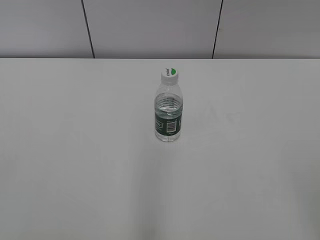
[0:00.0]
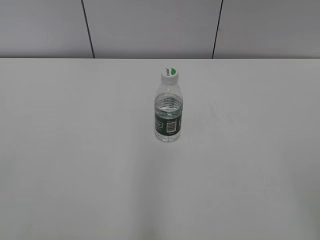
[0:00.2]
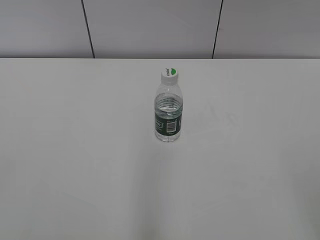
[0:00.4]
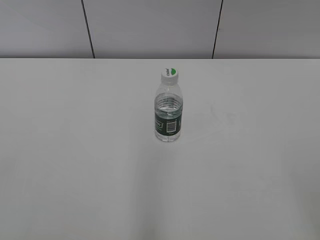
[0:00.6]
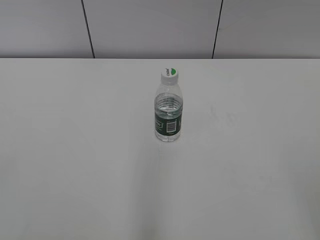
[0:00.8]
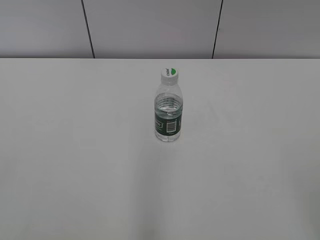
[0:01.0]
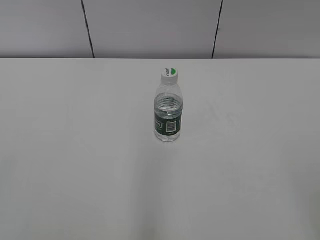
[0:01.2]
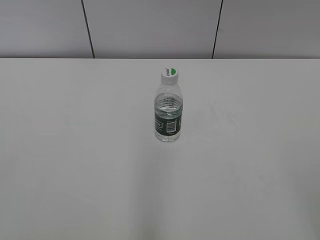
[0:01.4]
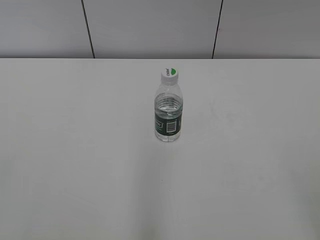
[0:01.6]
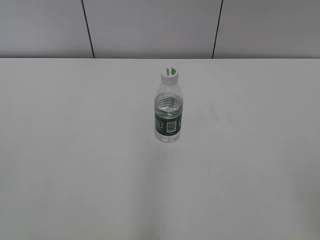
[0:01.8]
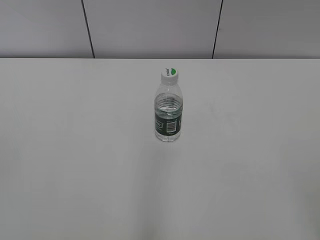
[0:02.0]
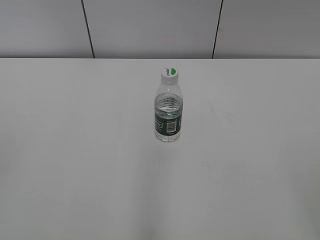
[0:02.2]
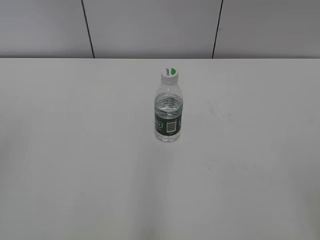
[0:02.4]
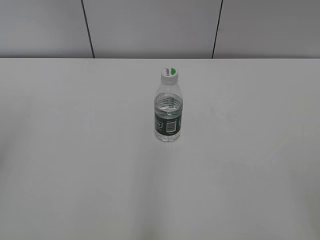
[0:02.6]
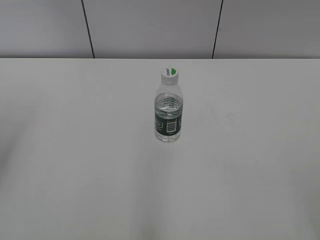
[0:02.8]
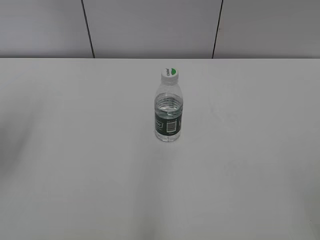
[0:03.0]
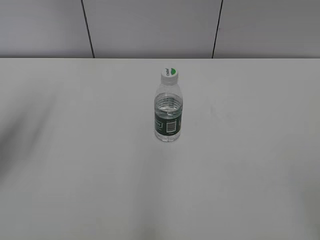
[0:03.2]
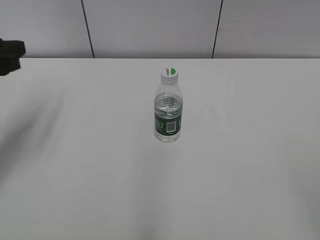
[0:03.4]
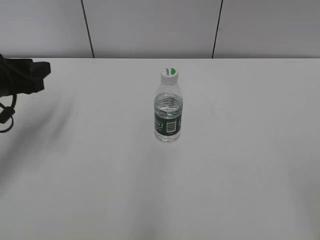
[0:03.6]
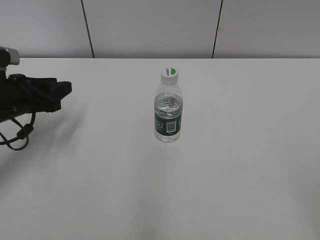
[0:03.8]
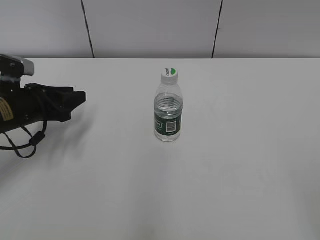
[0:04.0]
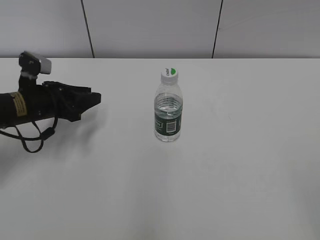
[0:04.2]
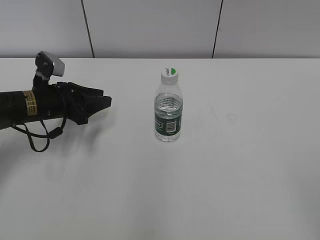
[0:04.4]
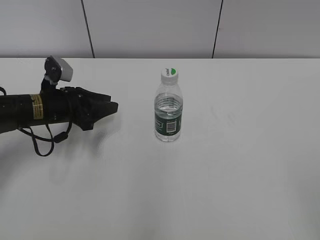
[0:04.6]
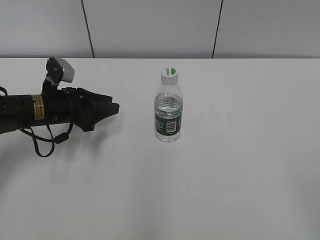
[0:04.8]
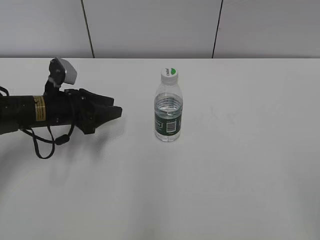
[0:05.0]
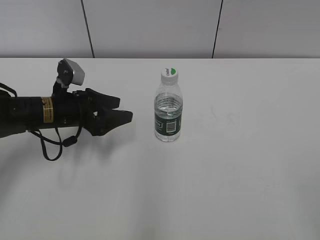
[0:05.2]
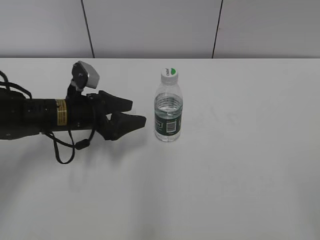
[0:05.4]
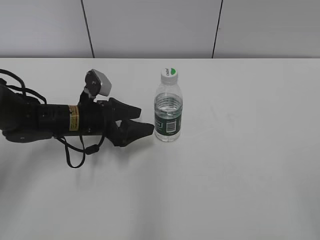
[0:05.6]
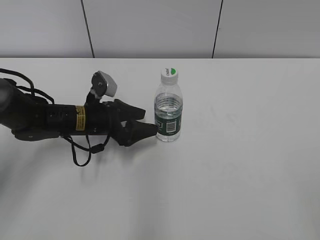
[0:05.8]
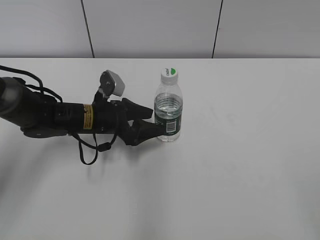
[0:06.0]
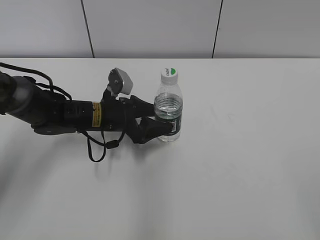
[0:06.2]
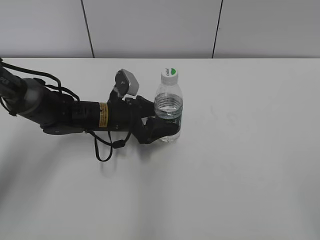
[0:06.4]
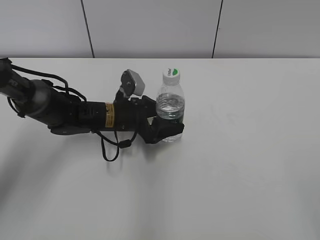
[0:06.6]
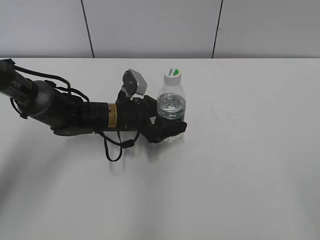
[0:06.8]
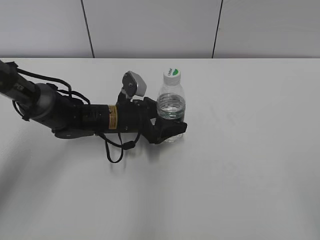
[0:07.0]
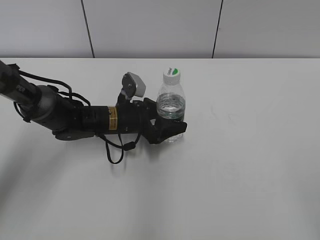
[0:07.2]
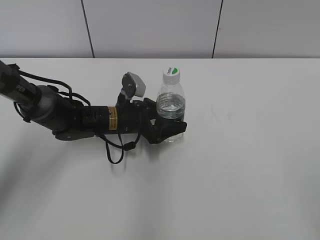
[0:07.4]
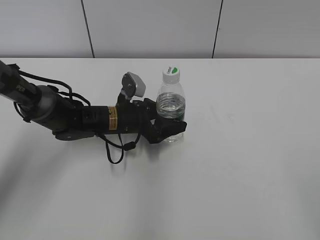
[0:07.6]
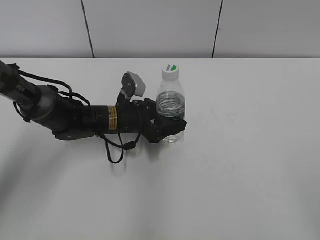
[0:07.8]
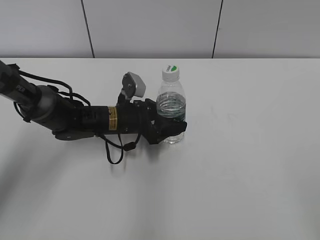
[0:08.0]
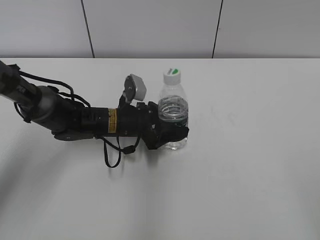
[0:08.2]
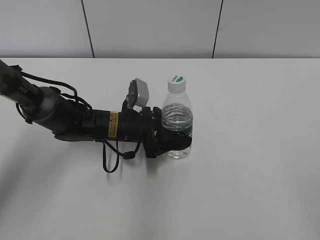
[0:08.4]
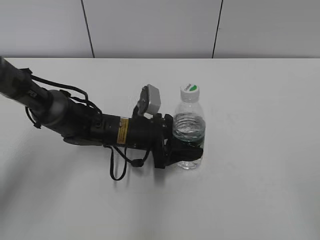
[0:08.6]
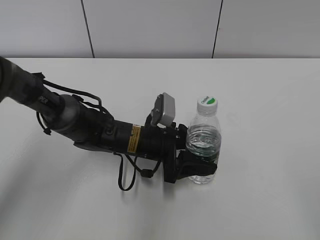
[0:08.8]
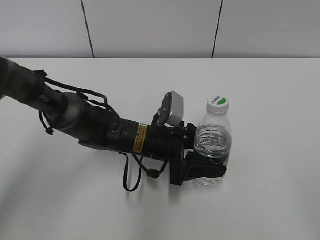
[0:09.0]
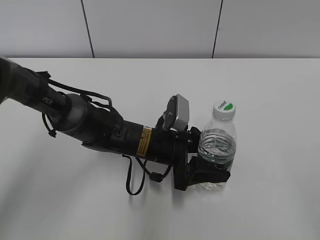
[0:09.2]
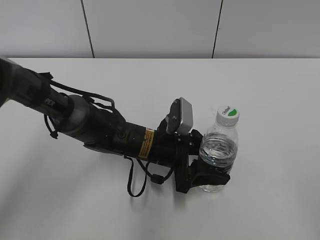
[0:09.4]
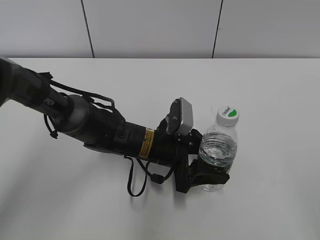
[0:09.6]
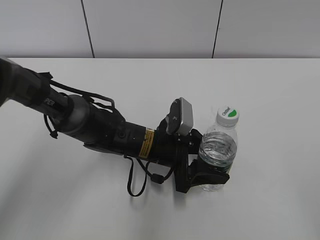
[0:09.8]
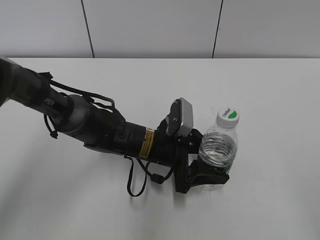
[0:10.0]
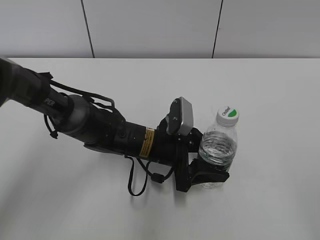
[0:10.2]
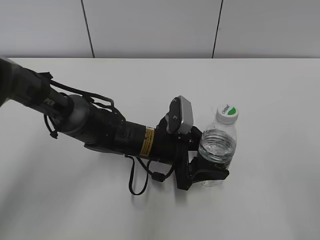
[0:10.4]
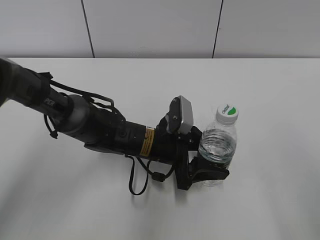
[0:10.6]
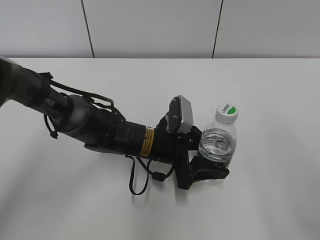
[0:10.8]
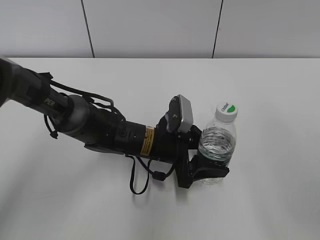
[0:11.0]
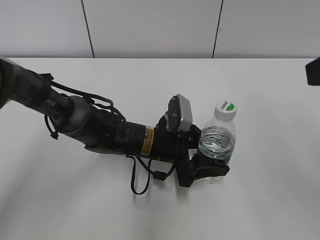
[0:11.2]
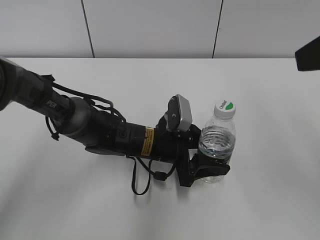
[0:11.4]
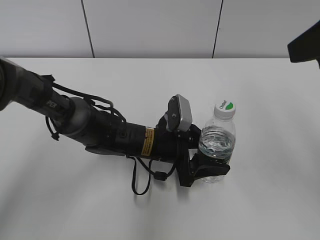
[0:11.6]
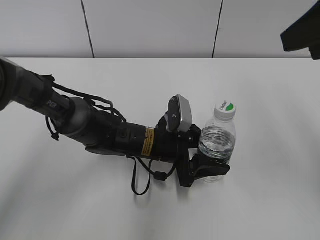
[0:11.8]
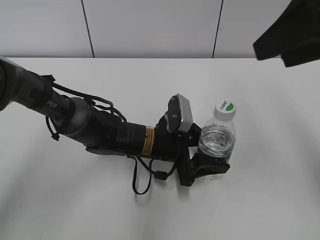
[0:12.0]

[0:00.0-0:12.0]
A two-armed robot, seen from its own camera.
Step, 0:00.0 to 0:07.6: Grab the C'estbon with the left hand.
Step, 0:07.8 to 0:10.6: Move the C'estbon to the right with the left hand.
0:01.6 to 0:03.0: The left gripper goes some 20 cm forward.
0:03.0 to 0:04.4: The left gripper travels downward, forward and to the right by some 25 cm.
0:04.4 to 0:06.0: The left gripper goes some 10 cm to the right, and opens up.
0:06.0 to 0:07.6: The grippers move only a little.
0:07.6 to 0:09.0: The left gripper heads backward and to the right, covering approximately 10 cm.
0:09.0 to 0:10.4: There are only small adjustments of the grippers.
0:10.4 to 0:12.0: The right gripper moves forward, roughly 20 cm.

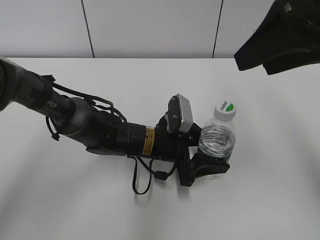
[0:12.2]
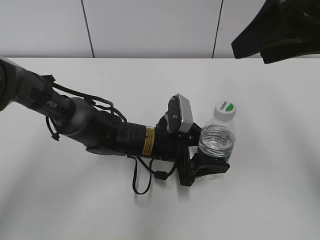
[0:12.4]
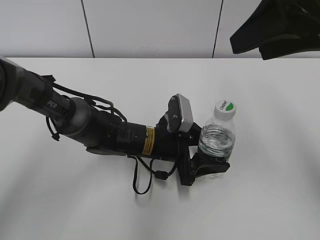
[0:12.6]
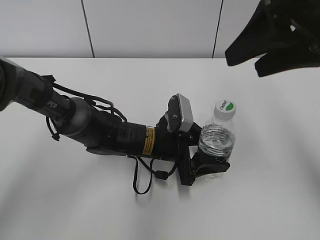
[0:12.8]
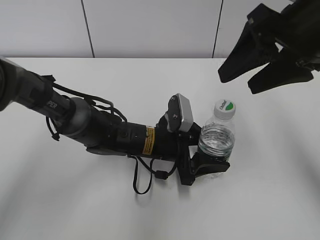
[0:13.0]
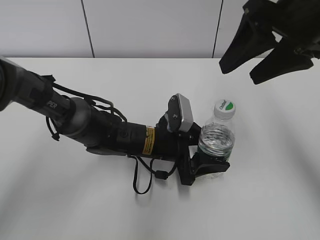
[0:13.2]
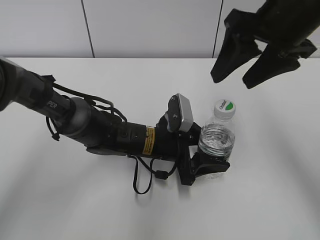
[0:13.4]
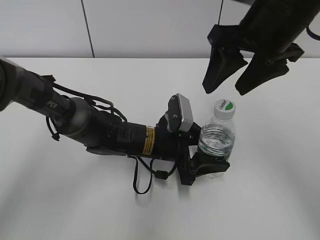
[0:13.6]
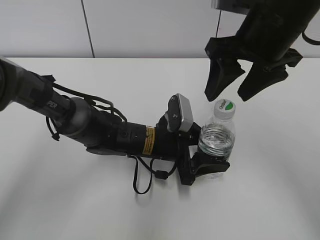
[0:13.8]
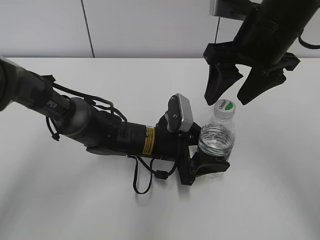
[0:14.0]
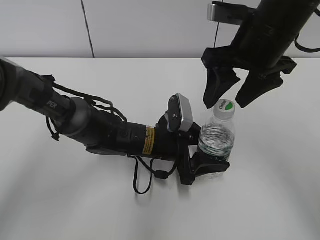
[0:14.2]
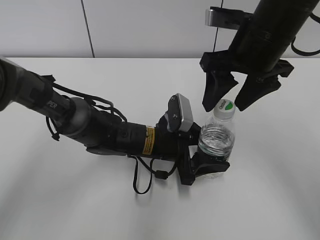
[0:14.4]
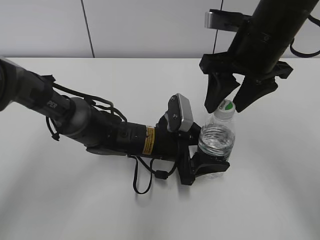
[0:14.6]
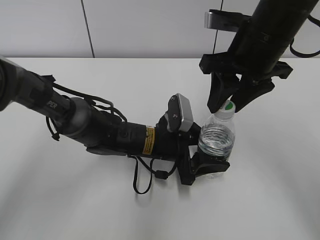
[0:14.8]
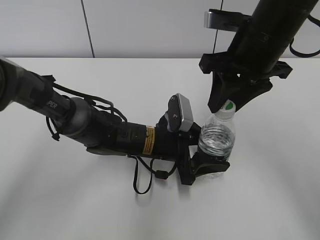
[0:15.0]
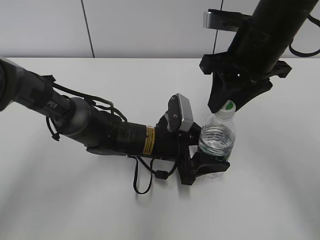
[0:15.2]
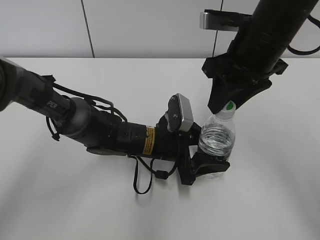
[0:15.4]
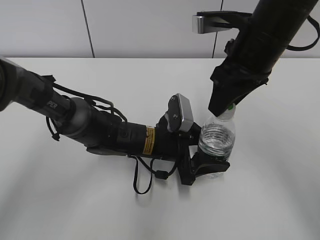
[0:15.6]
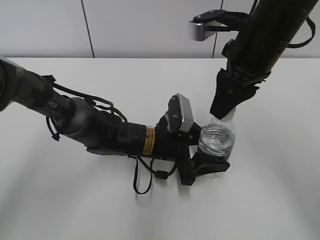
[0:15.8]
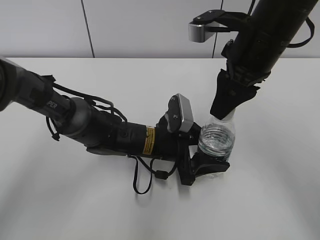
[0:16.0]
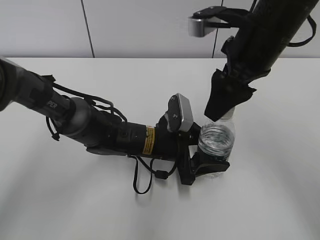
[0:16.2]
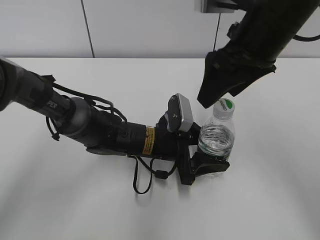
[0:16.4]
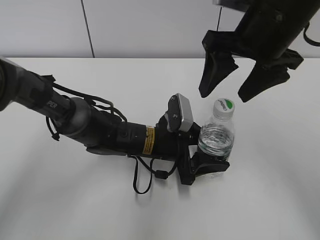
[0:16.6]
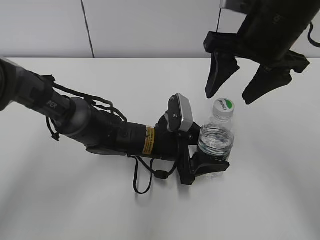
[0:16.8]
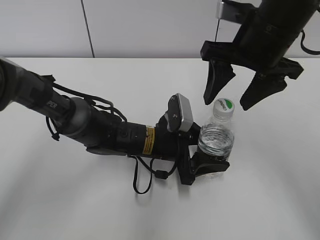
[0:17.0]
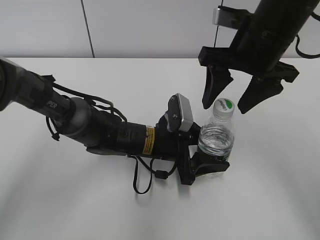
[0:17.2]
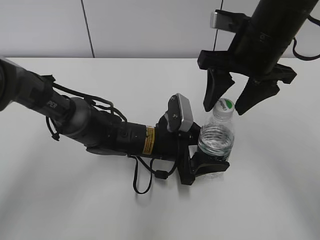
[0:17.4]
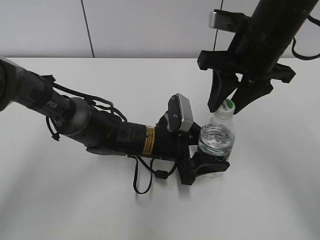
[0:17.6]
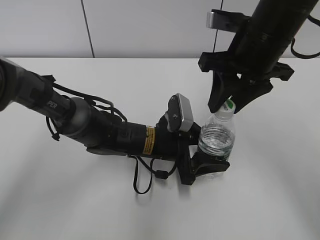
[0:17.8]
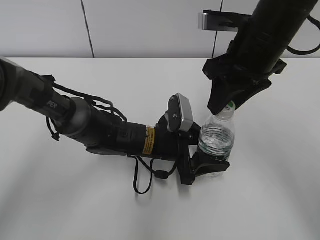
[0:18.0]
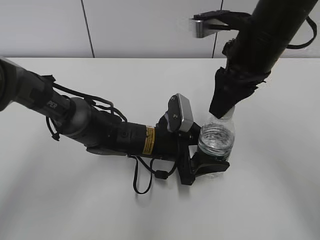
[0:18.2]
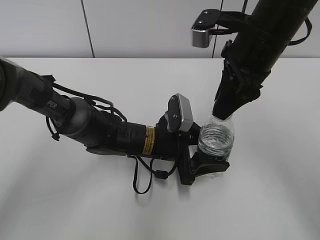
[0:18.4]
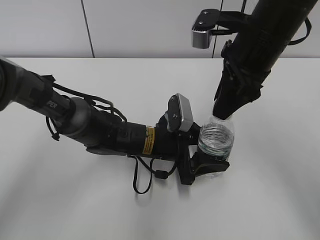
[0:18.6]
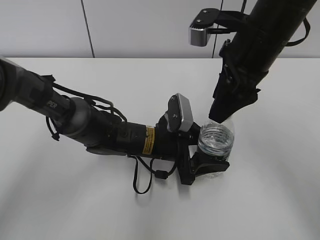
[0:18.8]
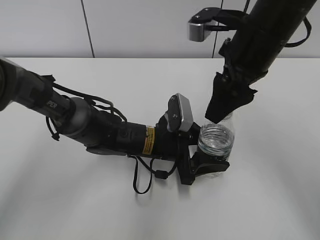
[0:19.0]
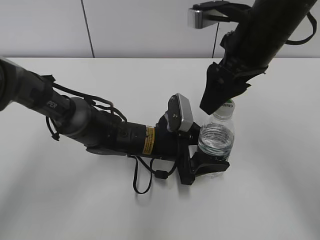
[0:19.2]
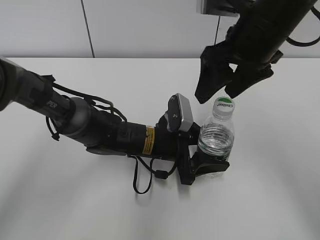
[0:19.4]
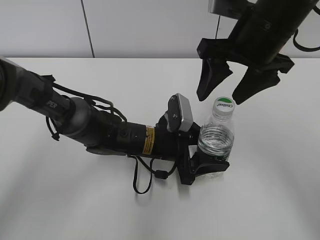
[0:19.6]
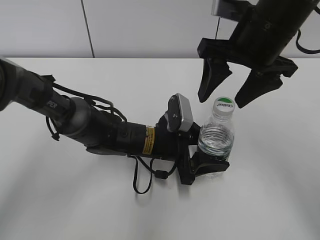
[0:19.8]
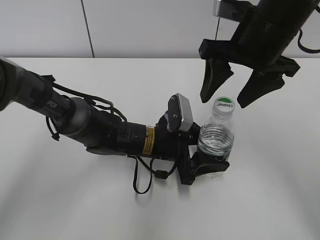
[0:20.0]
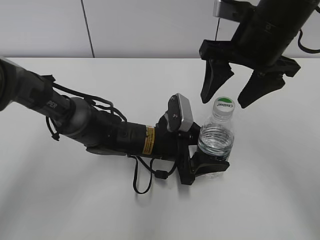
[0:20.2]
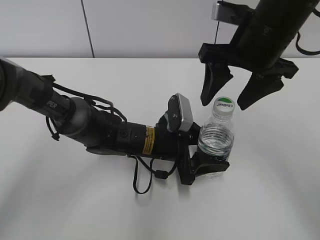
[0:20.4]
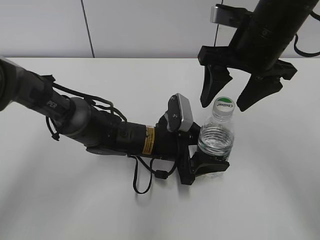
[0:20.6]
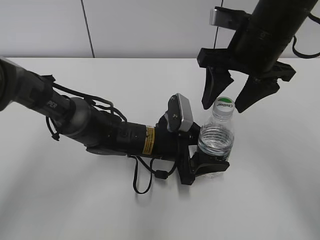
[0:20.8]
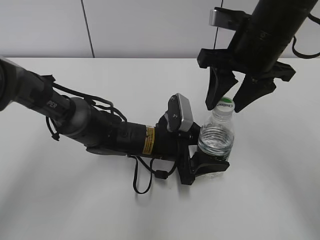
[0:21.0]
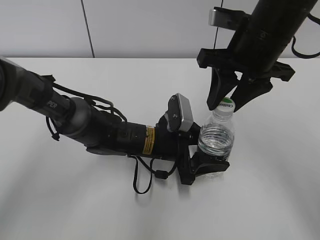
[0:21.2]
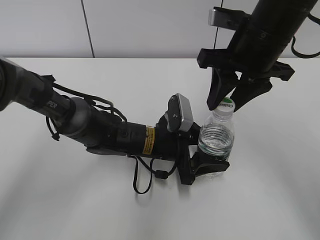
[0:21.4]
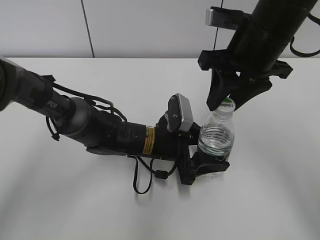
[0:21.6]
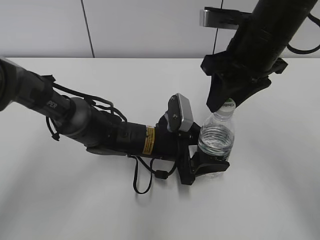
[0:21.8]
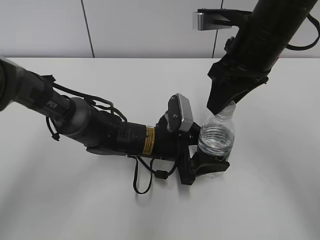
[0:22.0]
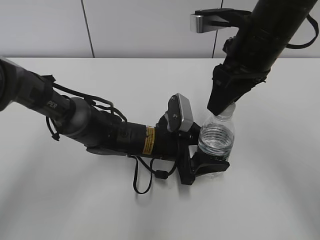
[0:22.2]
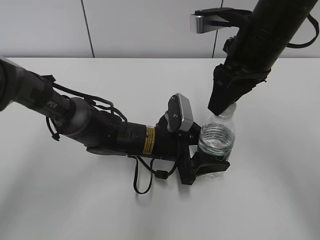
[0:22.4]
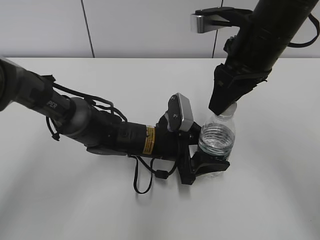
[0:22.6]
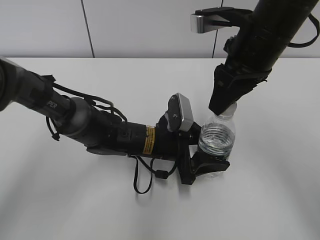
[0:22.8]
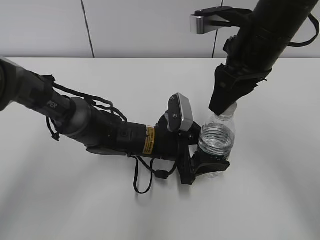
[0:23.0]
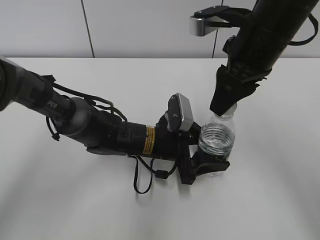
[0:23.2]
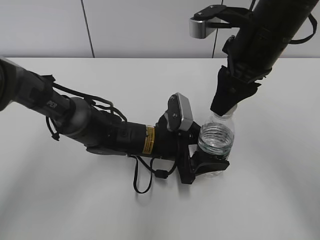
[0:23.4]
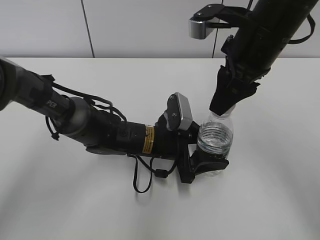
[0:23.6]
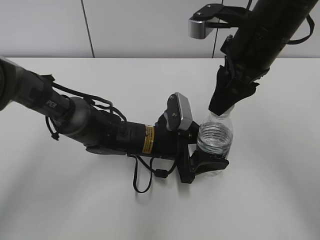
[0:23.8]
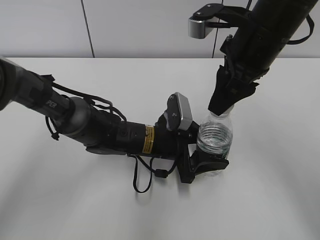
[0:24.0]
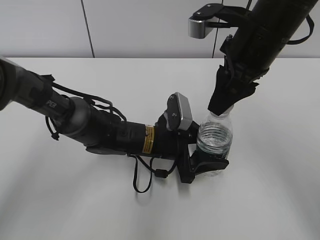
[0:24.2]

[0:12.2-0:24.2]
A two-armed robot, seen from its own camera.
0:12.2 to 0:13.8: The right gripper goes some 10 cm forward, downward and to the left.
0:13.8 to 0:15.2: The right gripper closes up.
0:15.2 to 0:16.6: The right gripper opens.
0:16.6 to 0:18.2: The right gripper closes.
0:18.2 to 0:19.8: The right gripper opens its fingers.
0:19.8 to 0:21.2: The right gripper closes up.
0:22.6 to 0:24.2: The grippers make only small movements.
